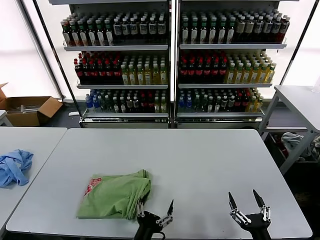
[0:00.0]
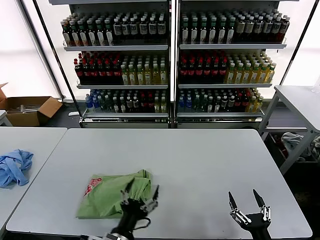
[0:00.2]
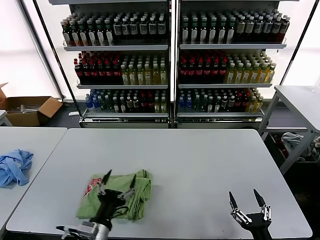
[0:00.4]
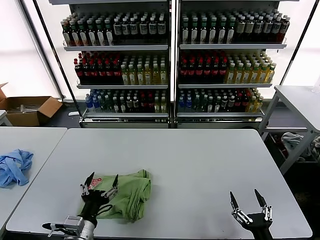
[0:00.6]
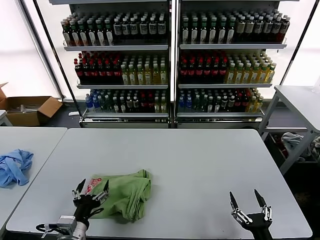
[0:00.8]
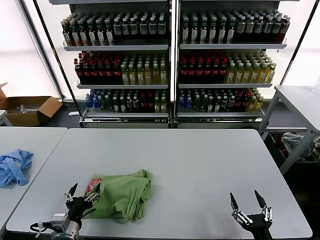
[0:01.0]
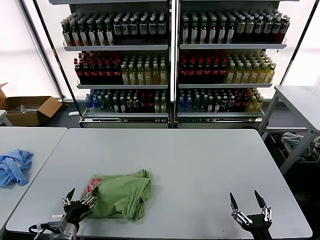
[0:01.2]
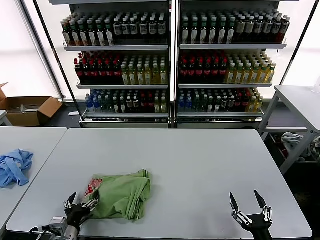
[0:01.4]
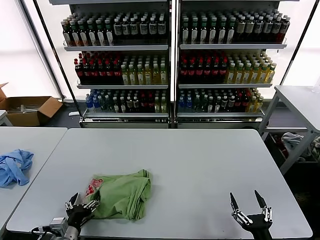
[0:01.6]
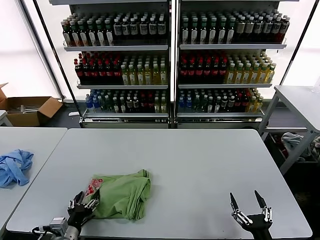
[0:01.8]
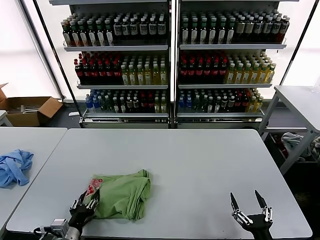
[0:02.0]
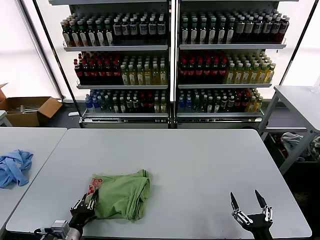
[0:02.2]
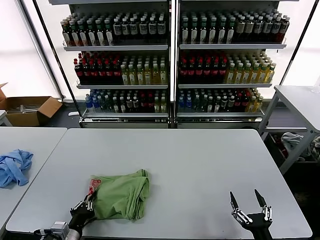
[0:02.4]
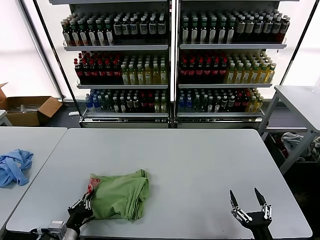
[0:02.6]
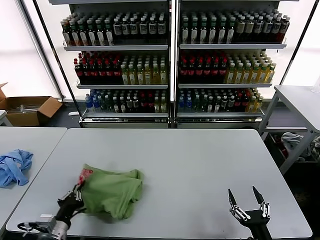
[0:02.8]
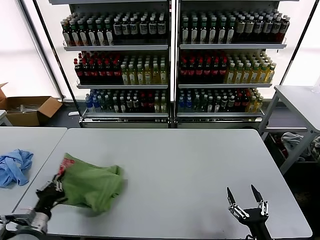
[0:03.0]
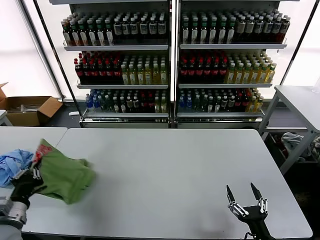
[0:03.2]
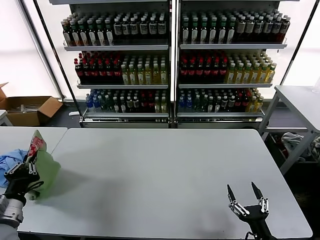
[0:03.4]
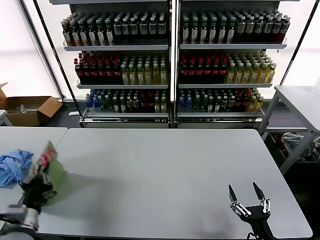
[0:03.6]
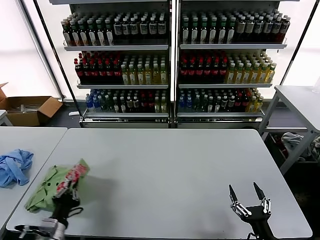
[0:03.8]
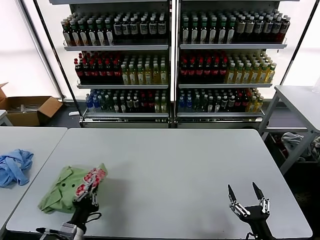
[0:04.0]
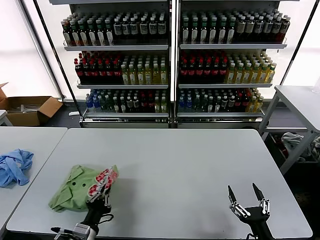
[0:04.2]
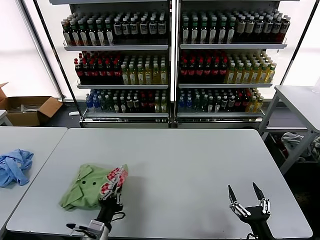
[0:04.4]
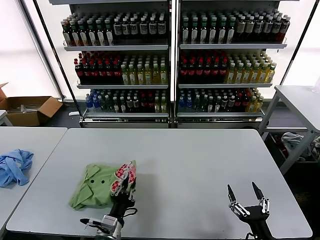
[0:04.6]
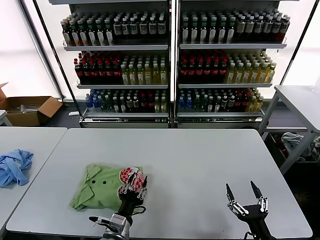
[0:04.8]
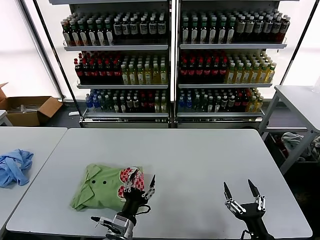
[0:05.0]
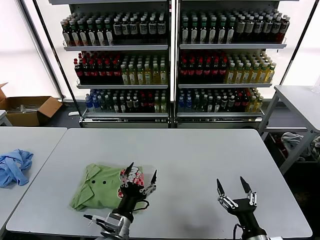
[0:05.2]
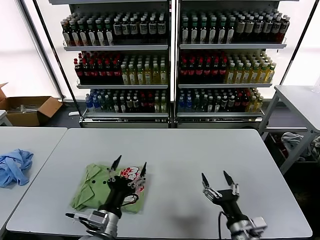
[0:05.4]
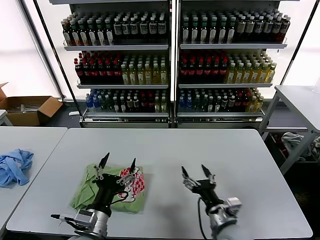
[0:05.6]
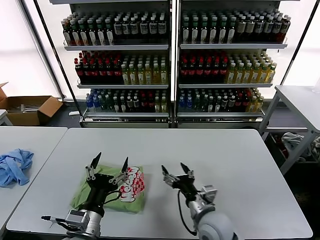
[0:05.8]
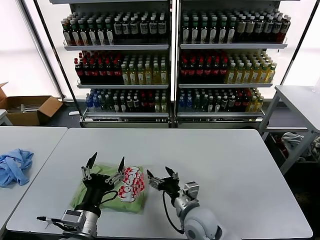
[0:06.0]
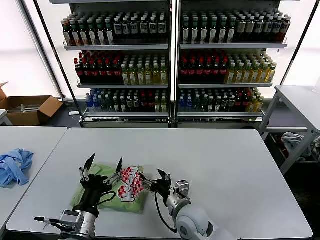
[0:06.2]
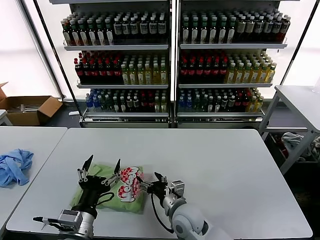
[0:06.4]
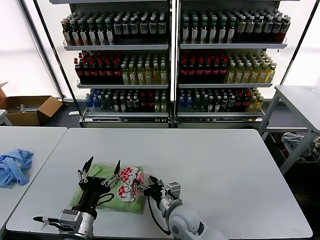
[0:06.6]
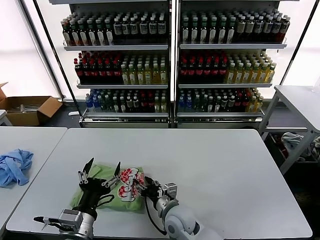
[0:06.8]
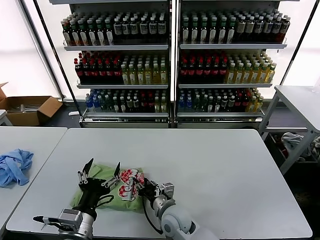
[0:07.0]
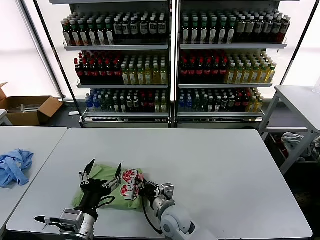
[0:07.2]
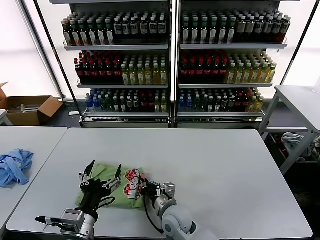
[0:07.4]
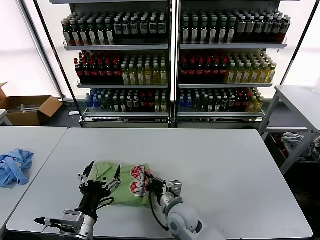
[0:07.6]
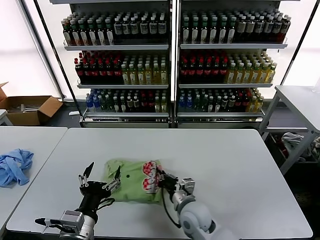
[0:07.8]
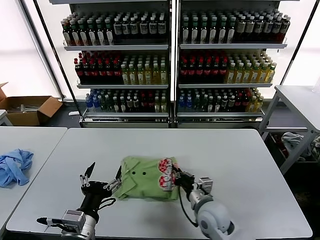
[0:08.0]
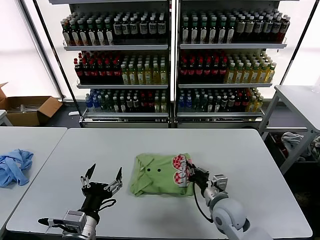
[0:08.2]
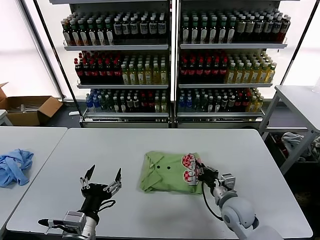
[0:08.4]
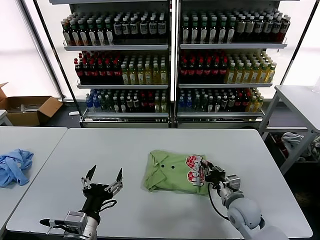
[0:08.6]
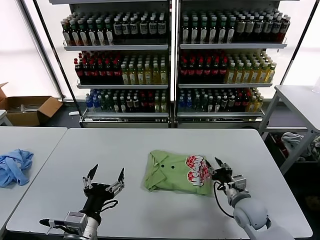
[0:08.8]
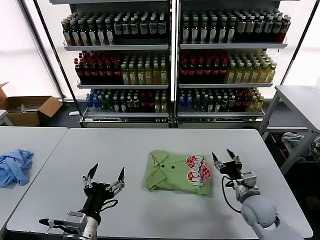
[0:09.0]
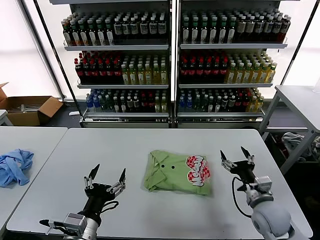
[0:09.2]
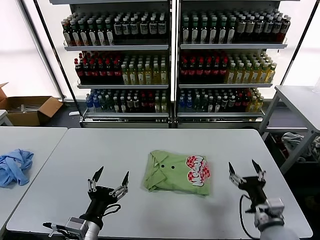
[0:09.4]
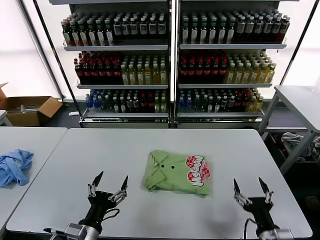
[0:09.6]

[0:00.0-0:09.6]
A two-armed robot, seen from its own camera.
Task of the whole recording: fold and organize the clothes.
Step, 0:00.0 to 0:04.6: Flip the folded clothes over with left gripper.
Step, 0:05.0 to 0:05.4: Drag the clothes to the center of the table.
0:00.0 to 0:01.6: The left gripper shifts approximately 20 cm to the left.
0:01.6 to 0:03.2: The left gripper heads upward and to the left, covering about 15 cm, and closes.
0:03.2 to 0:04.8: The left gripper travels to the right by some 25 cm, and opens.
0:04.8 to 0:06.4: The left gripper shifts some 15 cm upward and to the left, and opens up. Meanwhile the right gripper travels to the left and forward by approximately 30 cm.
0:06.4 to 0:08.0: The right gripper heads to the right, covering some 5 cm, and closes up.
0:08.0 to 0:09.6: The right gripper is displaced to the right and backward by roughly 20 cm, and opens.

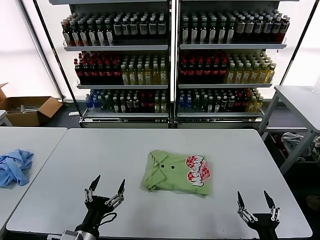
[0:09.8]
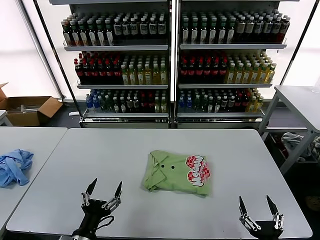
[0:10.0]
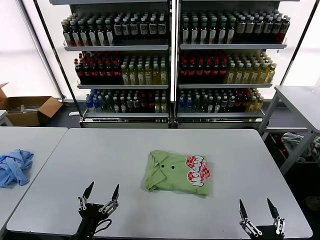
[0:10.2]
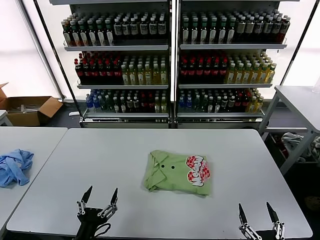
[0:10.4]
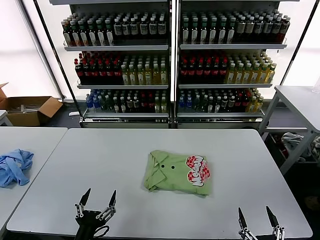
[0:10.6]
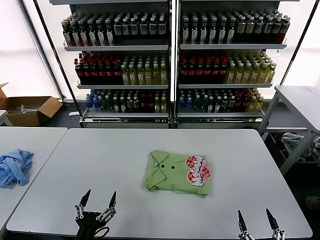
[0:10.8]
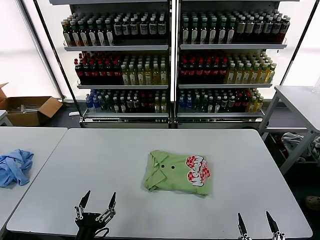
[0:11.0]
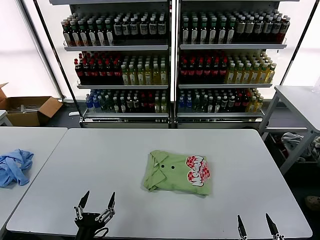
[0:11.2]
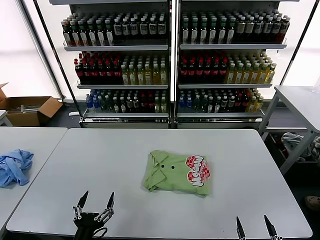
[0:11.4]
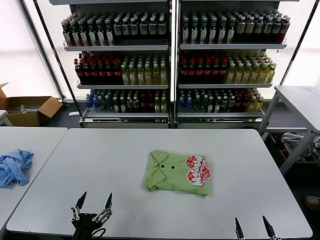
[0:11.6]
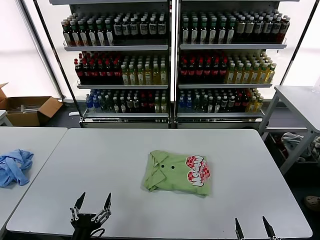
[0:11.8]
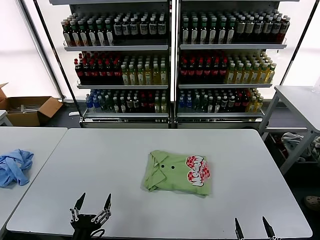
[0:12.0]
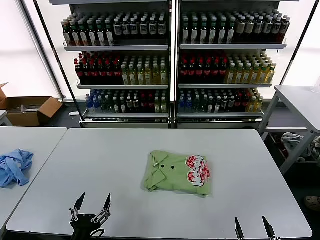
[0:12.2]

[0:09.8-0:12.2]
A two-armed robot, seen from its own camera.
Task of the whole recording: fold and organize the clothes.
0:09.8 to 0:11.0: The right gripper goes approximately 10 cm backward, while the left gripper moves about 5 cm.
0:11.0 to 0:12.2: The grippers make only small movements.

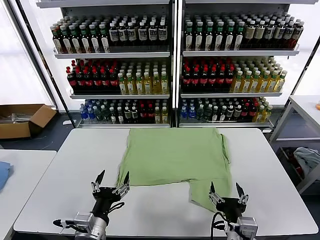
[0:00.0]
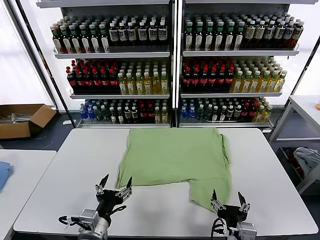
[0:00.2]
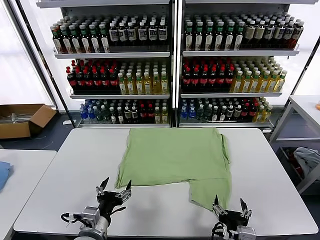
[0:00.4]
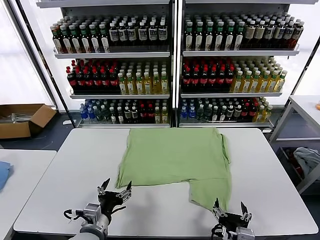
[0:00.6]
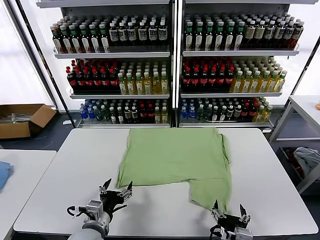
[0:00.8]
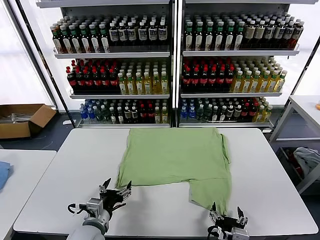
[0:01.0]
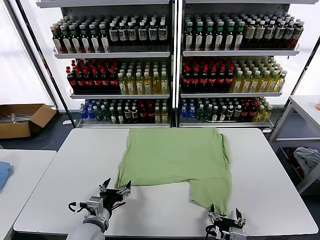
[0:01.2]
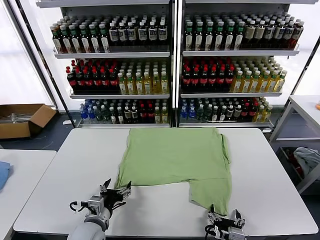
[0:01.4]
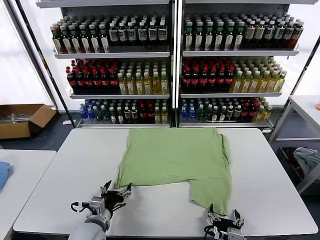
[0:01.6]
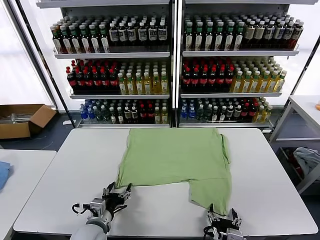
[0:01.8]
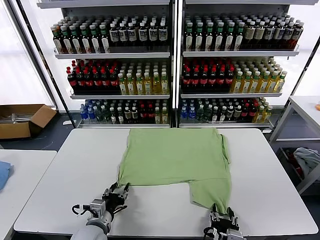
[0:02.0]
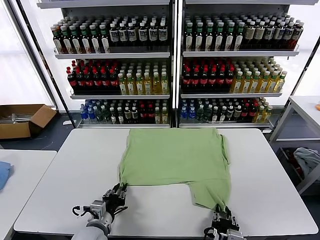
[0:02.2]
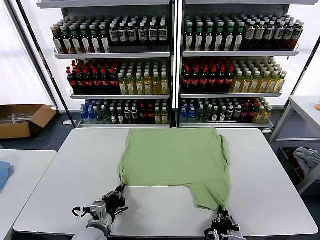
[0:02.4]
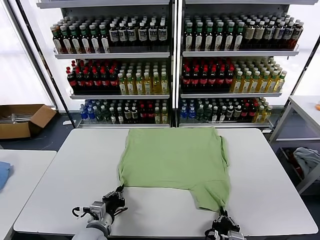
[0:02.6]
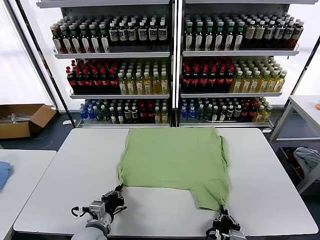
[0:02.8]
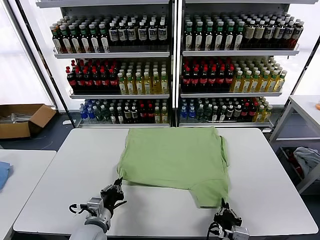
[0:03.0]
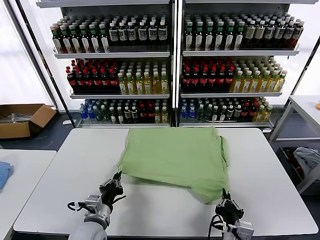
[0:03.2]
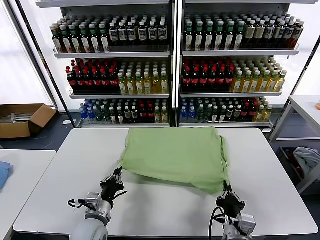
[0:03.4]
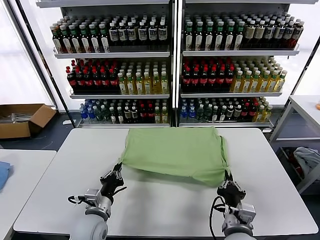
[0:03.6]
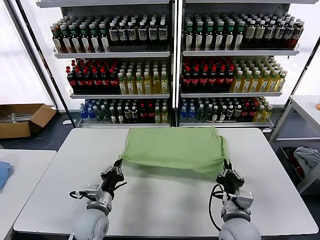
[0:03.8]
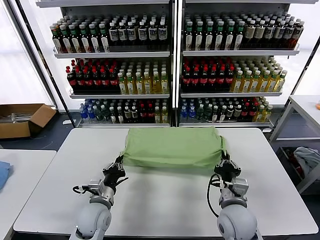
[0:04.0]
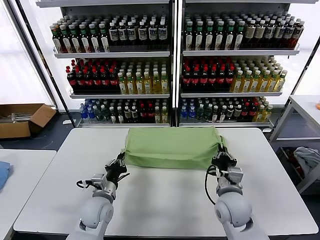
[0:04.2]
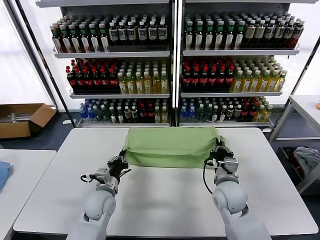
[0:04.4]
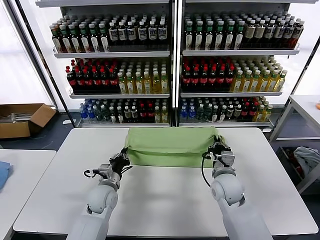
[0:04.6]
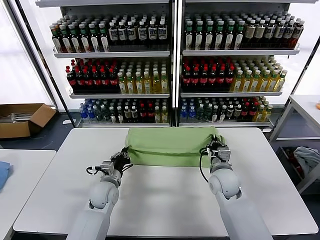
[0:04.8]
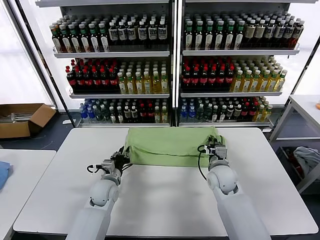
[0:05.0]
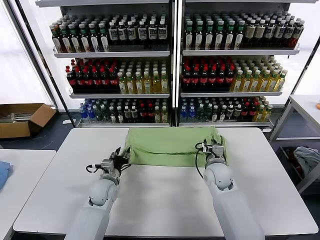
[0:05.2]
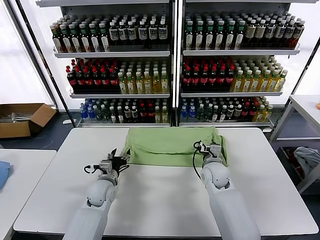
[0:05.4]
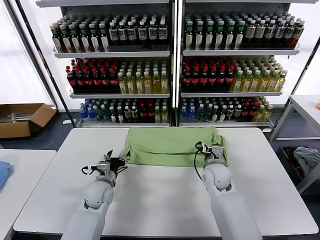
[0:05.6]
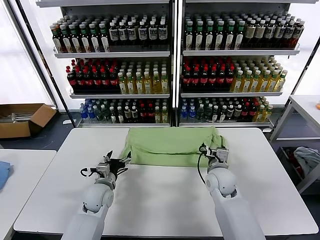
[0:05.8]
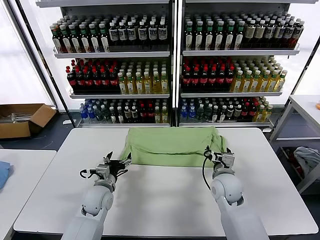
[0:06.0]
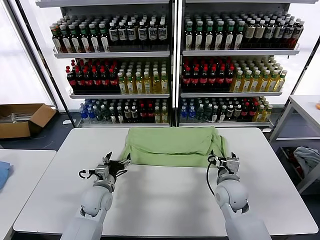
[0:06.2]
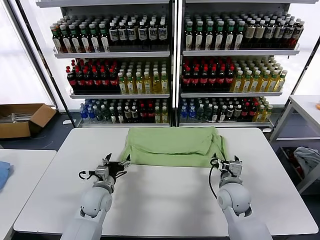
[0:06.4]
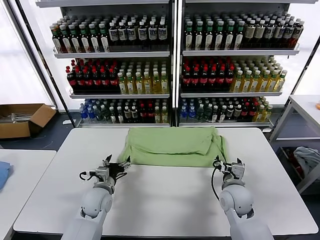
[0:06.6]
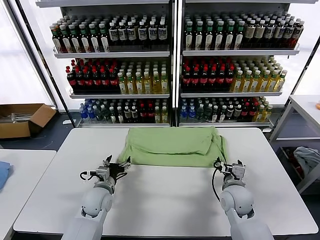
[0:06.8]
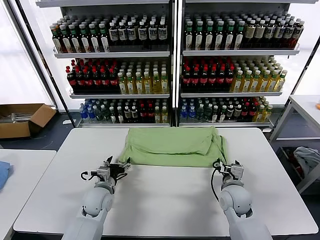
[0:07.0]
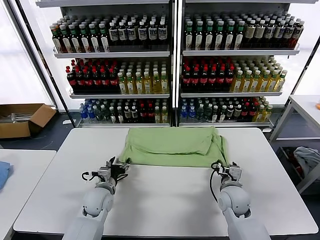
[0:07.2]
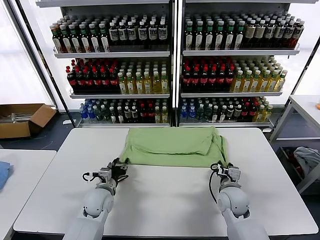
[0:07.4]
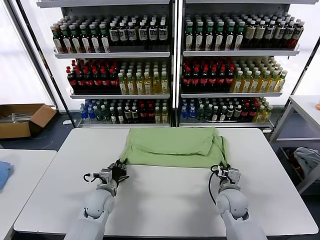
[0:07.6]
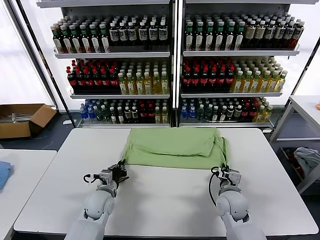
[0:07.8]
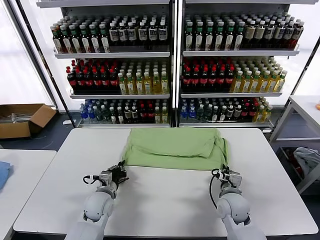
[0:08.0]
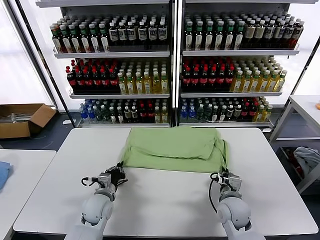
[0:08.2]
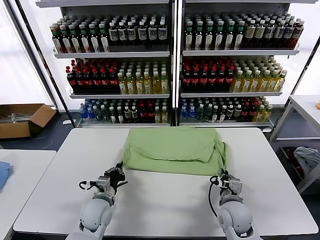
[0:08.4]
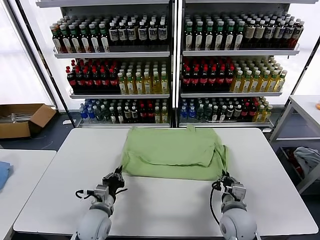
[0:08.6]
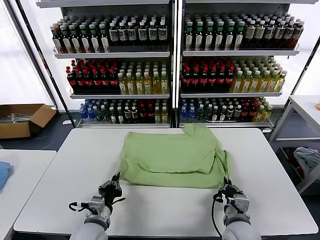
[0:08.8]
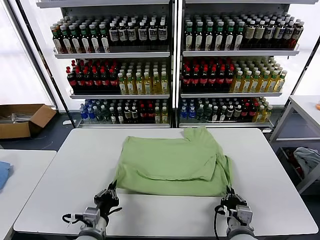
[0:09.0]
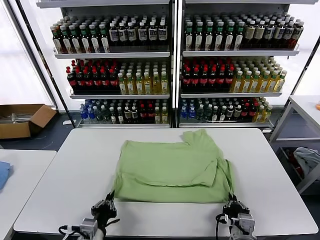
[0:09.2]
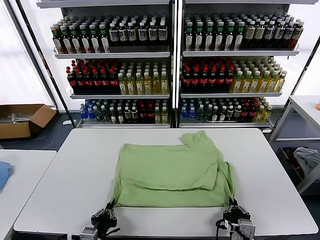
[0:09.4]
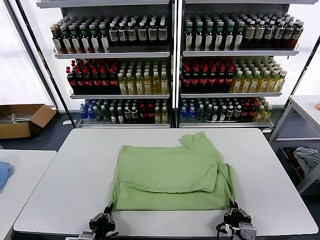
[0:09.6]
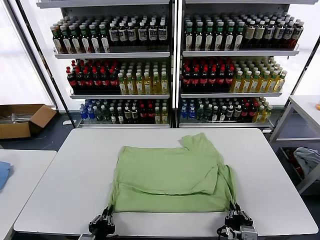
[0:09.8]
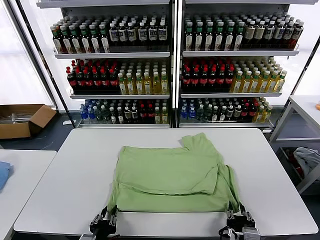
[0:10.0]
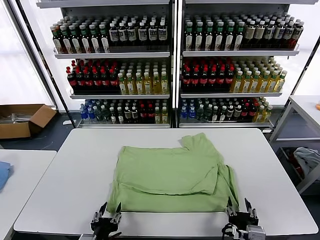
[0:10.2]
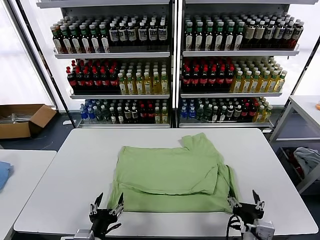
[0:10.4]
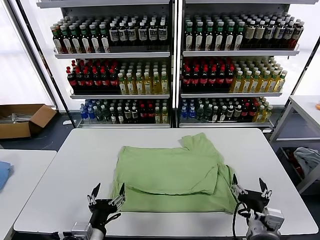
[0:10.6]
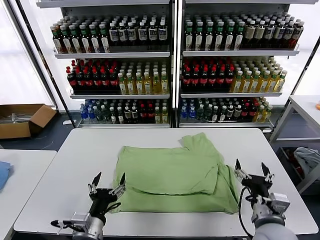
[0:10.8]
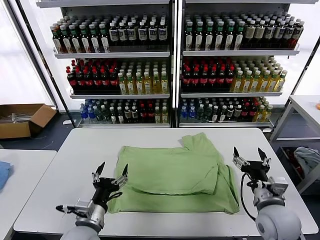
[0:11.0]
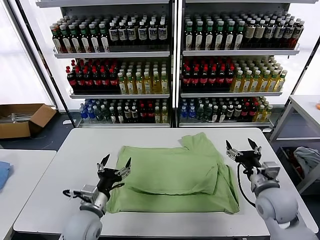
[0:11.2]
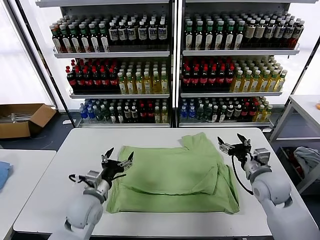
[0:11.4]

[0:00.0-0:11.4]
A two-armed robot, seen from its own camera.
Task of the whole recording: fold and organize the clothes.
Step, 0:00.0 to 0:02.4: use both grippers simultaneously to clamp the lower edge of the clothing fabric.
Step, 0:02.6 to 0:05.4: use both grippers to drag the lower edge of the fabric forward and fold it over the upper edge.
Step, 0:05.6 to 0:10.0: Drag the clothes downward with both gripper.
0:01.4 to 0:02.8: The left gripper closes. The right gripper closes its fingers.
0:02.8 to 0:04.2: The left gripper heads forward, covering about 10 cm; the right gripper moves forward, about 20 cm.
0:04.2 to 0:05.6: The grippers both shift forward by approximately 10 cm. The right gripper opens its fingers. The left gripper opens.
0:05.6 to 0:07.2: The right gripper heads backward, covering about 5 cm.
0:07.2 to 0:08.6: Both grippers travel together backward, some 10 cm. The right gripper closes. The left gripper closes up.
0:08.6 to 0:10.0: The two grippers go roughly 15 cm backward. The right gripper opens its fingers.
0:10.0 to 0:11.4: The left gripper is displaced forward by approximately 15 cm, and opens. Meanwhile the right gripper travels forward and to the right by roughly 25 cm, and opens.
